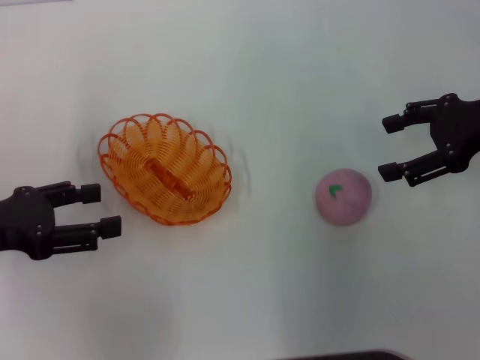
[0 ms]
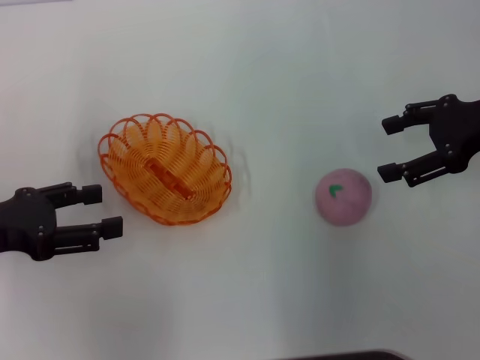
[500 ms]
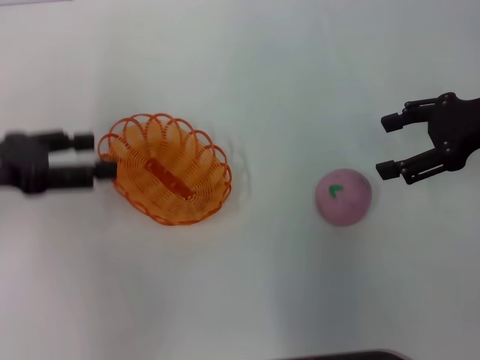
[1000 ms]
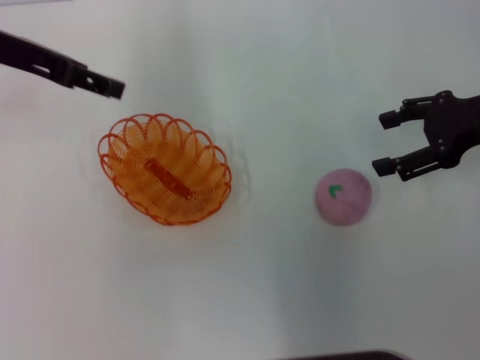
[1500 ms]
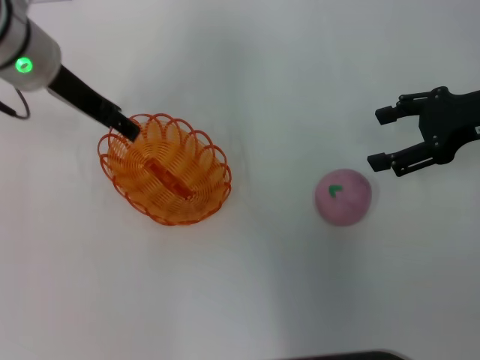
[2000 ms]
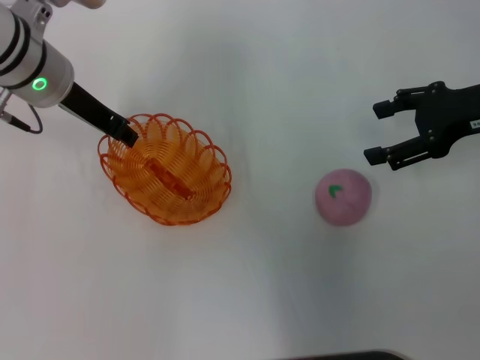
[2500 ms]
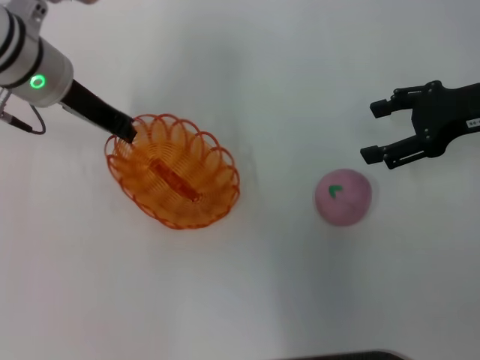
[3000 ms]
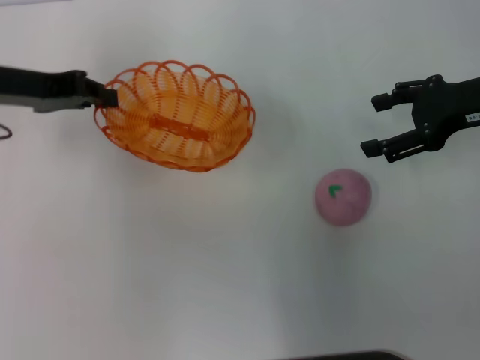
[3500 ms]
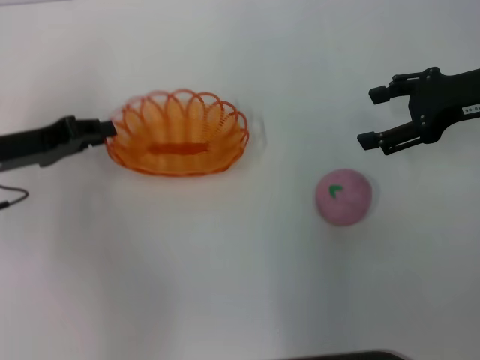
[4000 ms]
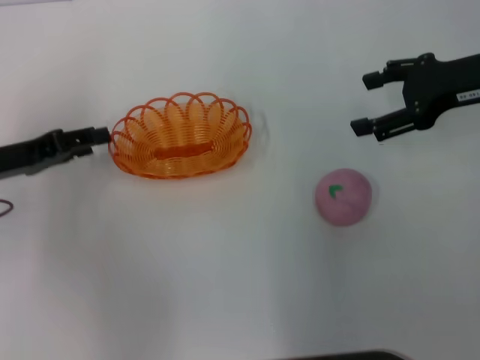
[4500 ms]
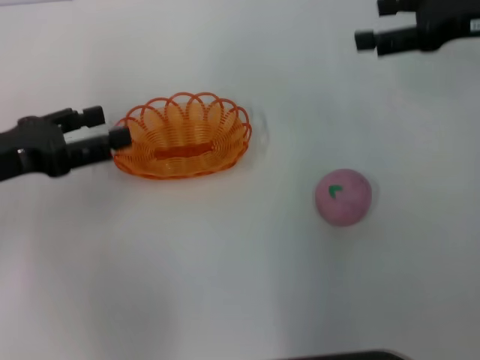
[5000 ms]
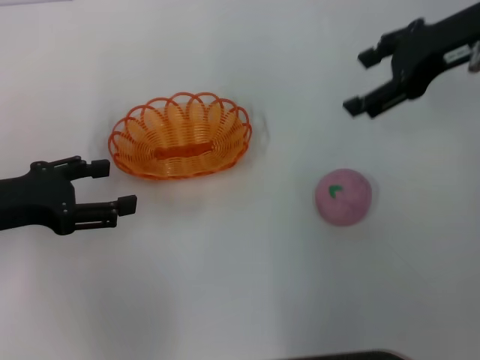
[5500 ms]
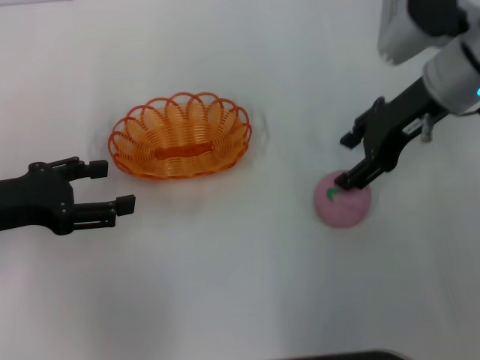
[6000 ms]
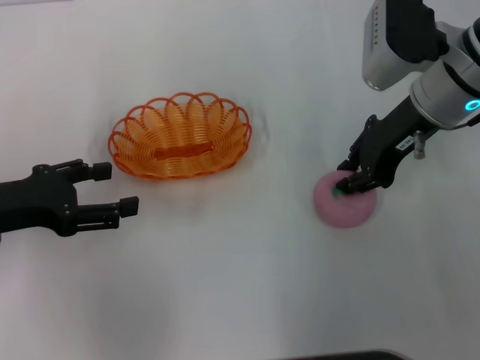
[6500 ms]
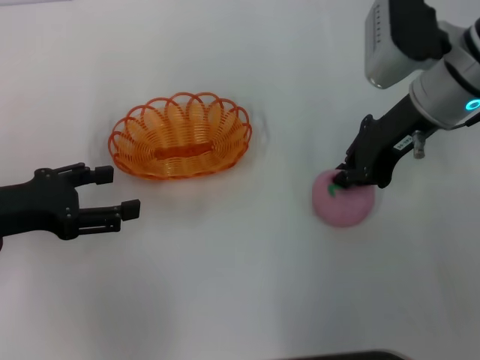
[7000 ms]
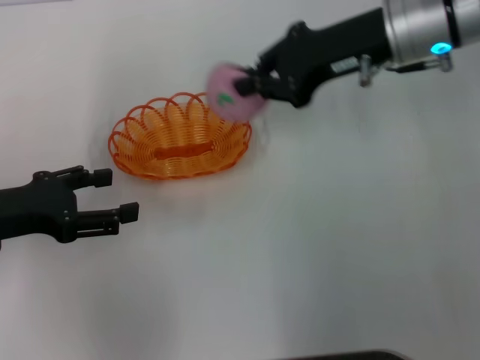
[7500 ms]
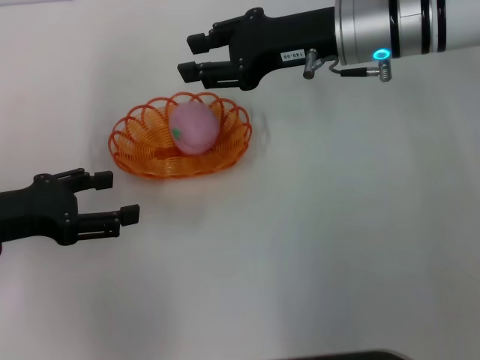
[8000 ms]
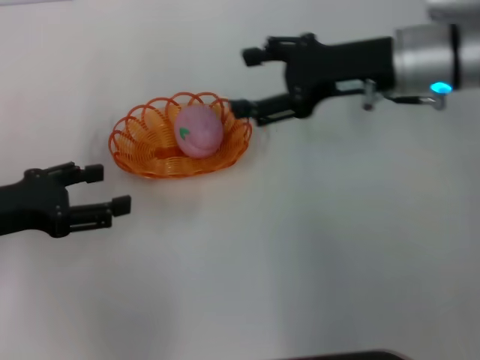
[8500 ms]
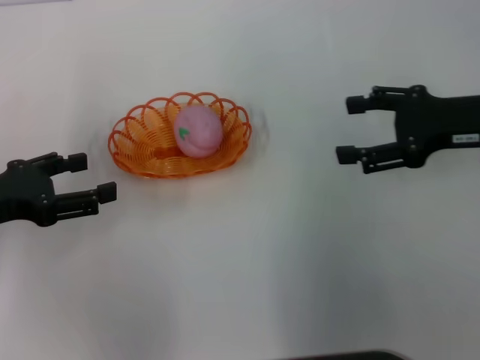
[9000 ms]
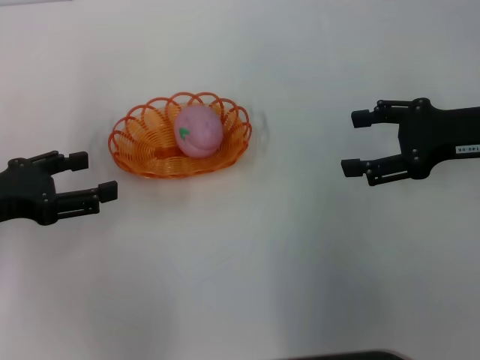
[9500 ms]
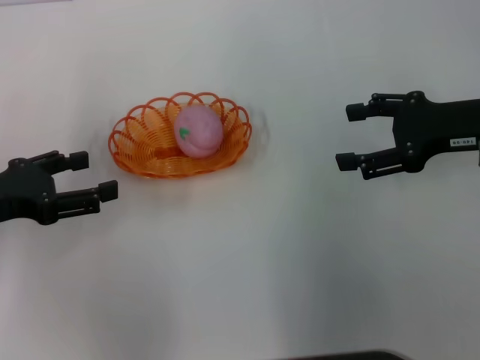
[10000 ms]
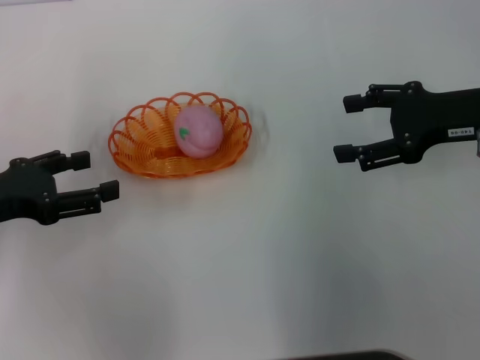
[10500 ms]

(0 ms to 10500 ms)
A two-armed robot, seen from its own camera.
Step, 0 ms - 3000 ms: Pick up the basket with the left gripper.
Step, 3500 ms - 4500 ms: Place the basket in the center of view with the left gripper.
Step, 5000 ms - 7000 ms: Pick up the peach with the right gripper.
Step, 7500 ms - 8500 ms: Place the peach into the basket with the right gripper.
0 ms - 2000 ms: The left gripper goes approximately 20 cm forward and to the right.
2000 ms - 4000 ms: The left gripper heads to the left, backward and downward, covering some 15 cm, and closes its fingers.
4000 ms - 6500 ms: The left gripper goes some 5 cm backward, and opens its fingers, while the right gripper shifts some 10 cm to the left, and closes up.
6500 ms - 8500 ms: The right gripper opens its fingers.
8500 ms - 10500 ms: The right gripper is displaced to the right by approximately 10 cm.

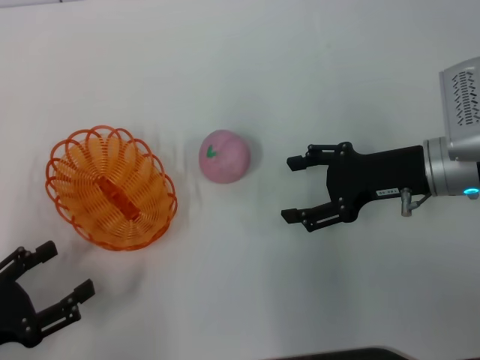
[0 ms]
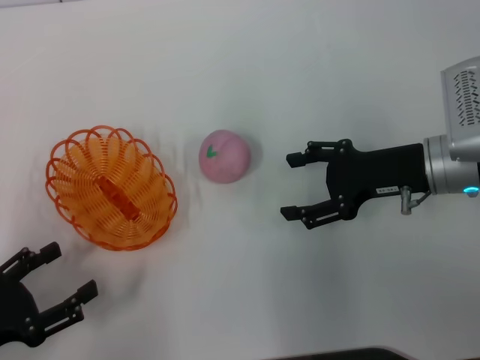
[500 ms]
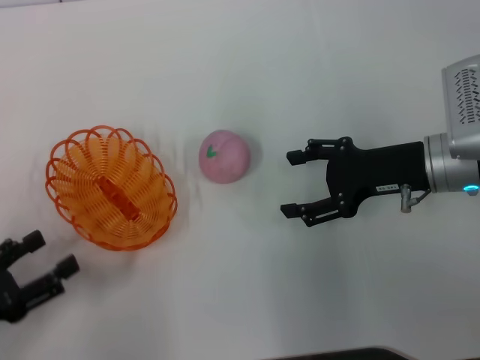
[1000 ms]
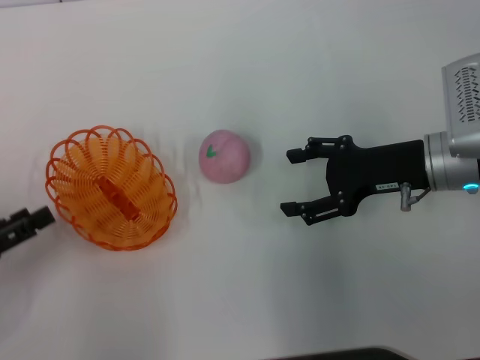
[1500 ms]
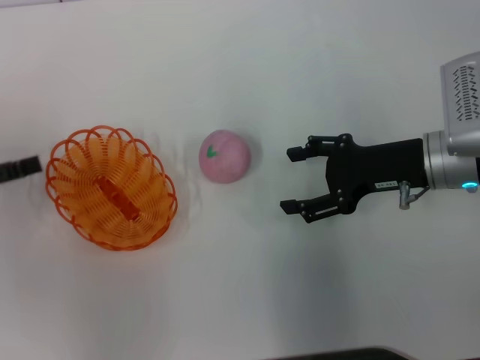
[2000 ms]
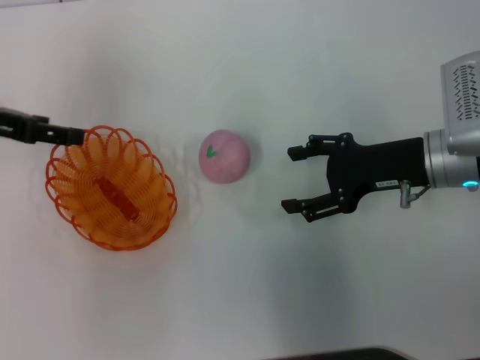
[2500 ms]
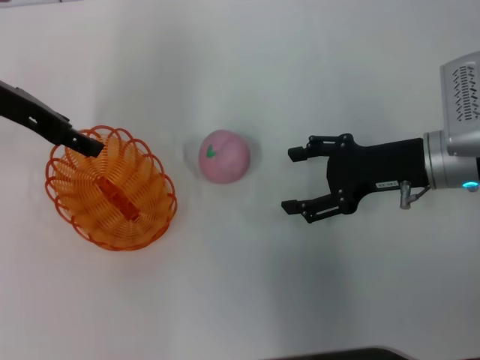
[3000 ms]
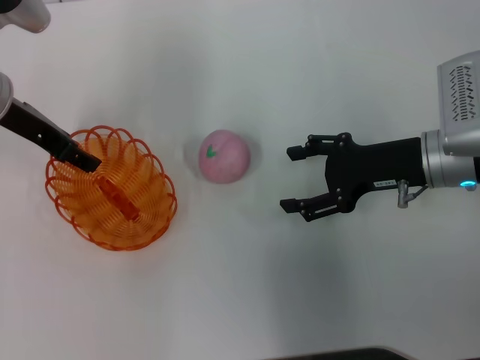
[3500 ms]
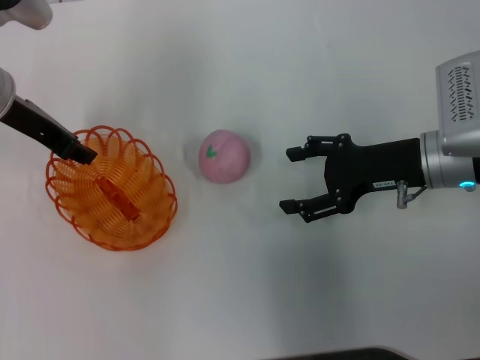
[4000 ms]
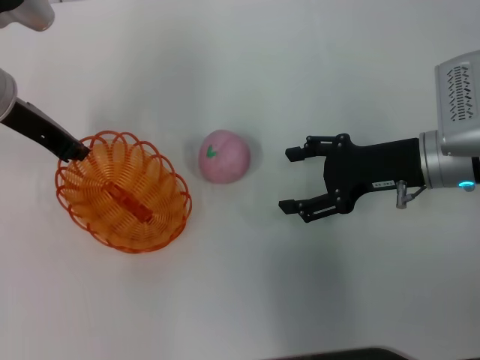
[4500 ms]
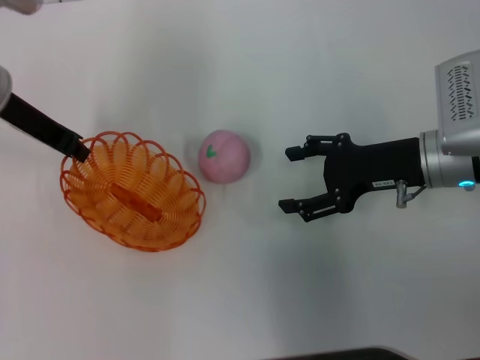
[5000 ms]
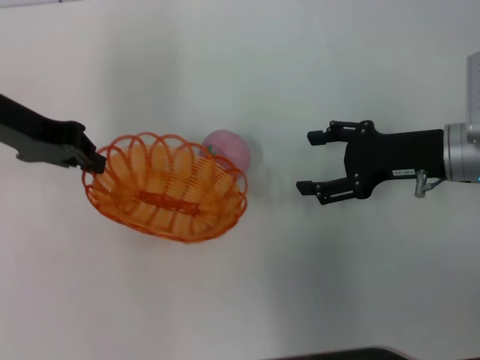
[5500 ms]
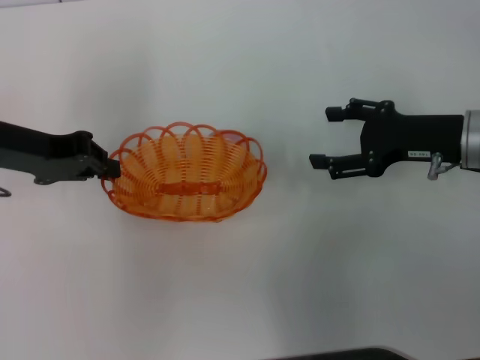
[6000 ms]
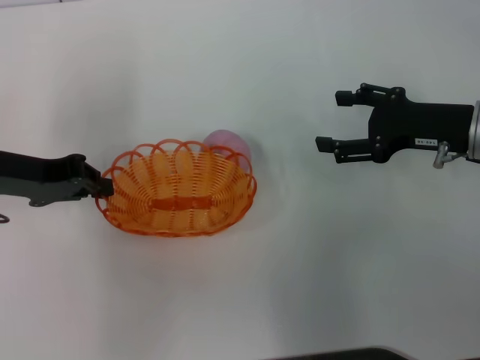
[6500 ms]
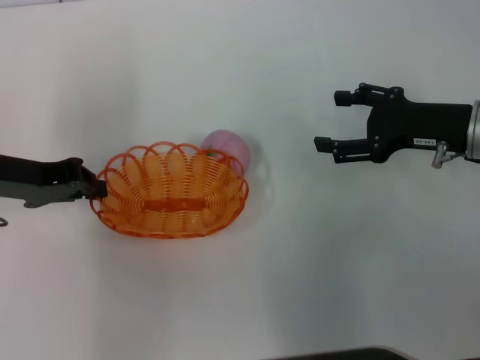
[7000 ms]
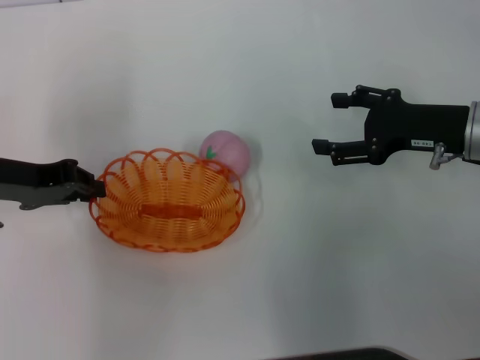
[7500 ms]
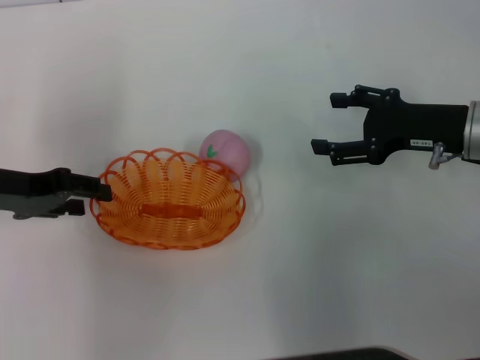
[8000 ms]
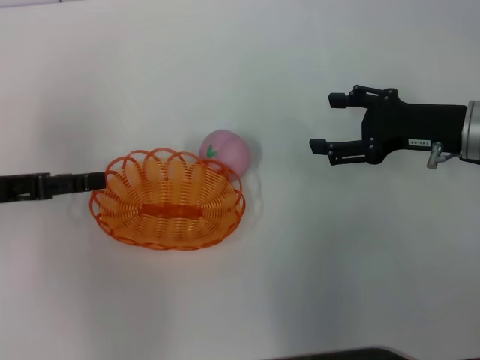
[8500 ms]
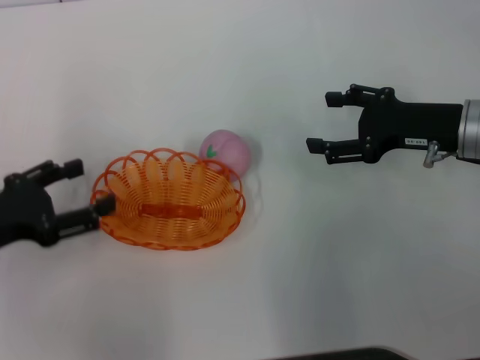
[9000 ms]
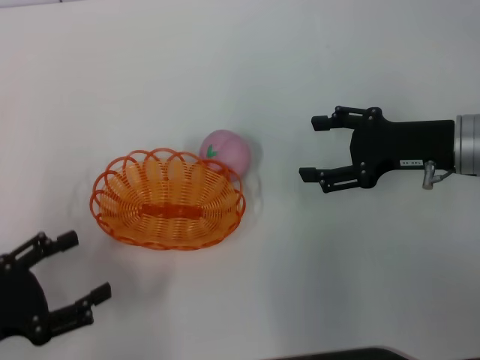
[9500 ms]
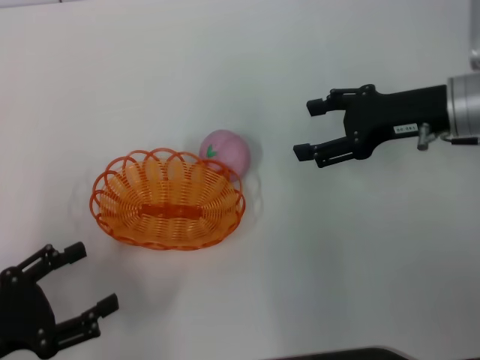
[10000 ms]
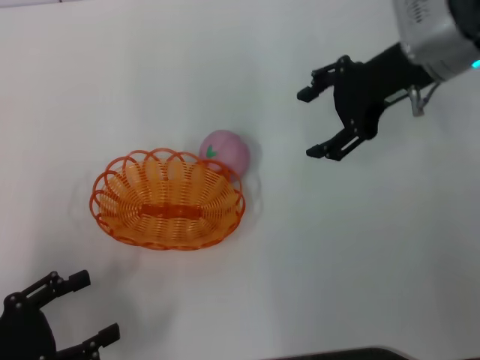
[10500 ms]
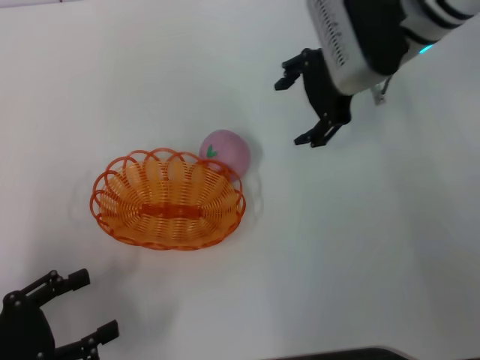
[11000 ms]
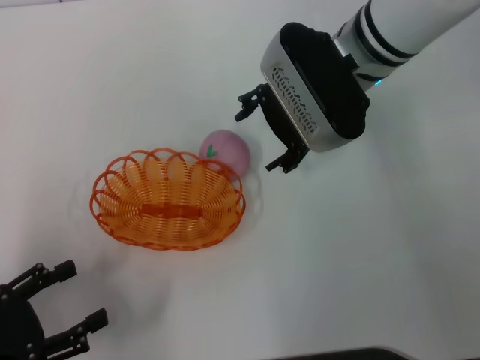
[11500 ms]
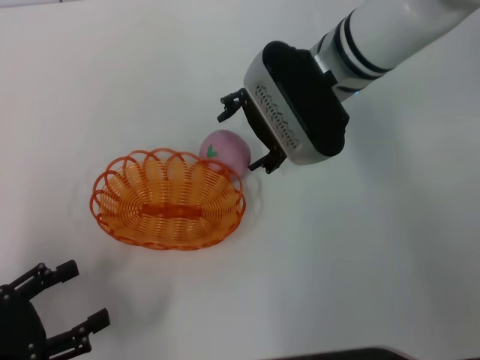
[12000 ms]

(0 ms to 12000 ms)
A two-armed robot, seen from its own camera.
Step, 0 ms - 5000 ms: Pick up the basket with the left gripper.
Step, 6000 ms - 9000 ms: Place the basket in the center of view with the left gripper.
0 ms - 2000 ms: The left gripper shifts roughly 15 cm forward and upward.
2000 ms - 4000 ms: The left gripper goes some 20 cm to the right and forward.
4000 ms - 6000 ms: The left gripper shifts by approximately 5 cm, and closes.
6000 ms - 8000 ms: The left gripper opens up.
8000 ms - 10000 ms: The left gripper moves backward and downward, roughly 20 cm, and opens.
10000 ms - 12000 ms: The right gripper shifts some 15 cm to the left.

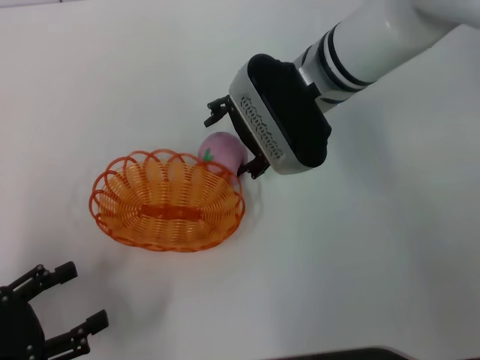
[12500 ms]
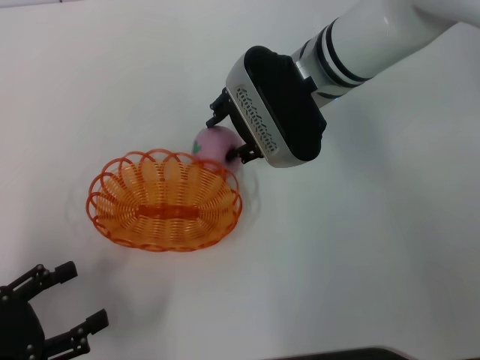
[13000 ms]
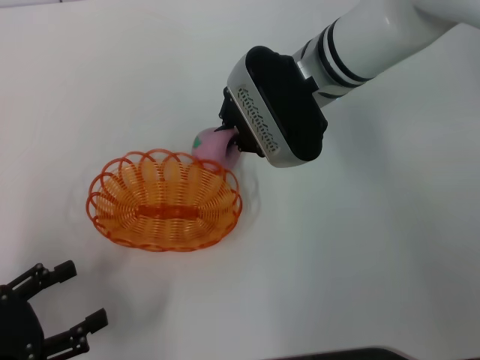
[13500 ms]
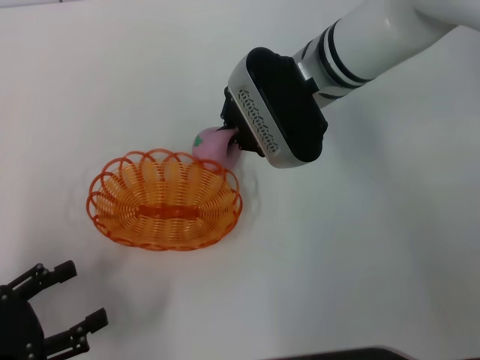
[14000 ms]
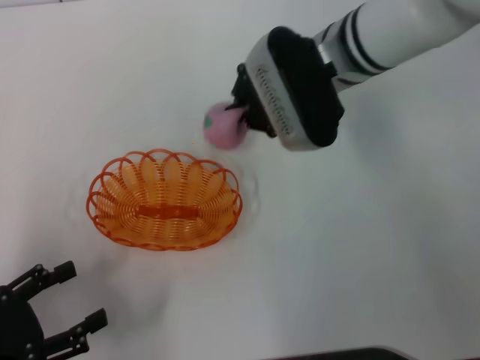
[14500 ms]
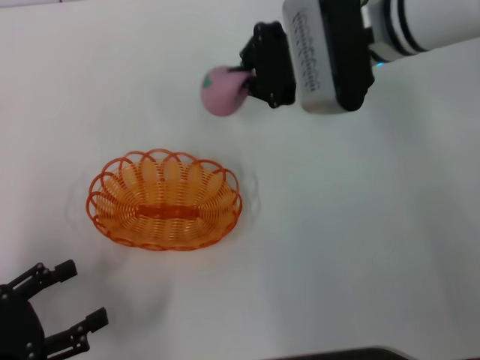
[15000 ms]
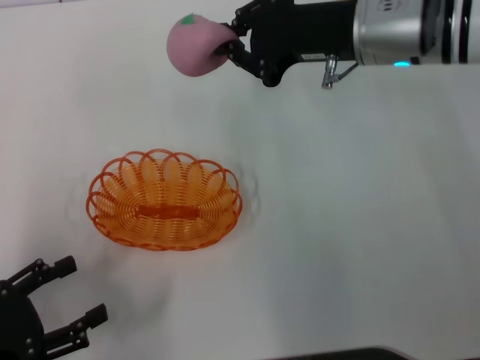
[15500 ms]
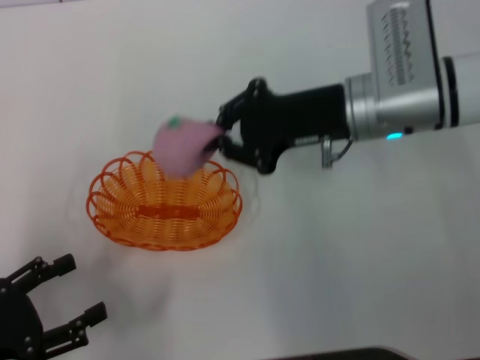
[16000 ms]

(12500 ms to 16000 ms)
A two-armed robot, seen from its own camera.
Step, 12500 ms - 14500 ms: Pick up the peach with the right gripper.
12500 ms - 14500 ms: The right gripper closes its fingers.
14500 ms - 16000 ms: The right gripper is displaced backward by some 5 cm.
